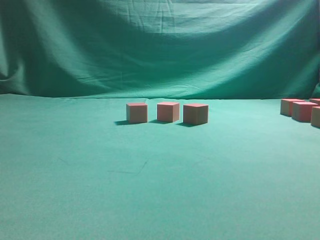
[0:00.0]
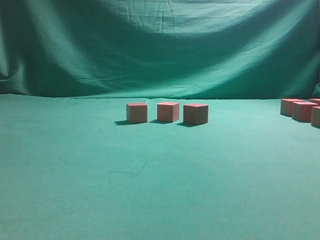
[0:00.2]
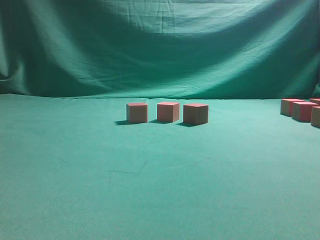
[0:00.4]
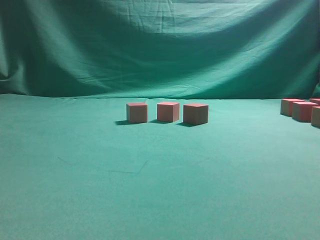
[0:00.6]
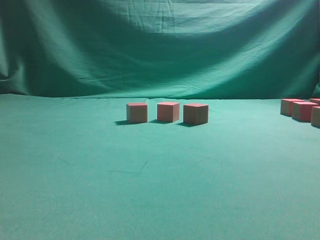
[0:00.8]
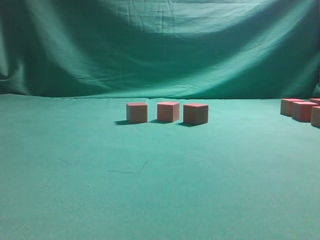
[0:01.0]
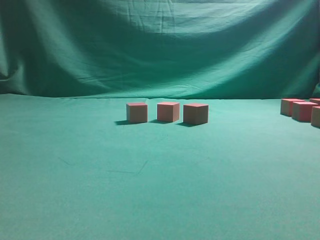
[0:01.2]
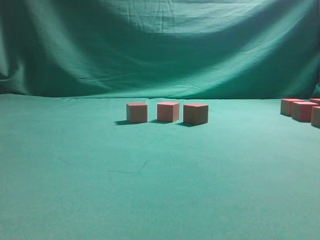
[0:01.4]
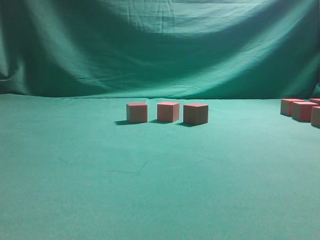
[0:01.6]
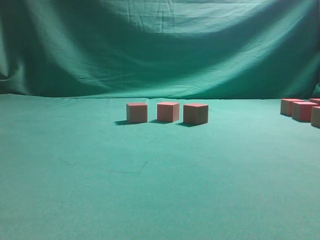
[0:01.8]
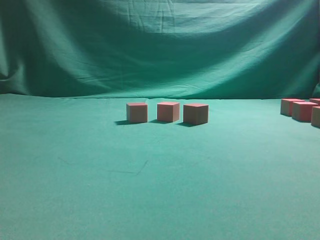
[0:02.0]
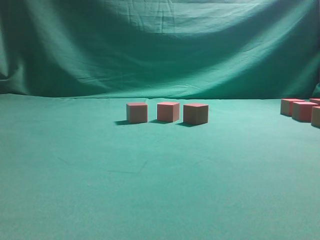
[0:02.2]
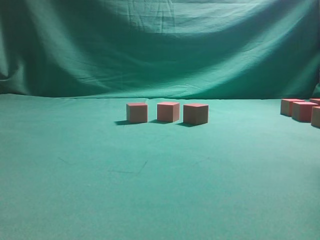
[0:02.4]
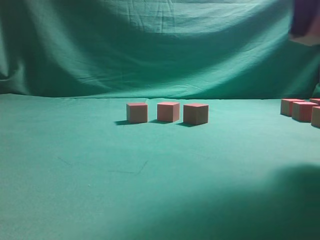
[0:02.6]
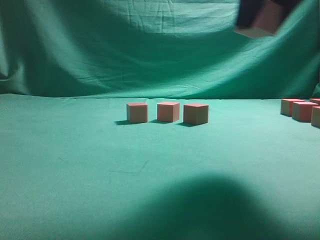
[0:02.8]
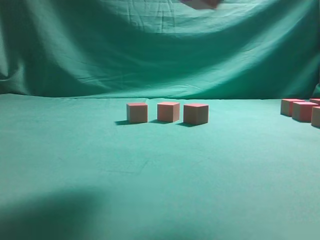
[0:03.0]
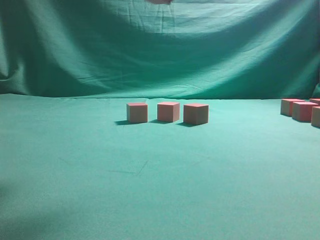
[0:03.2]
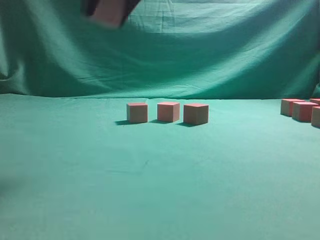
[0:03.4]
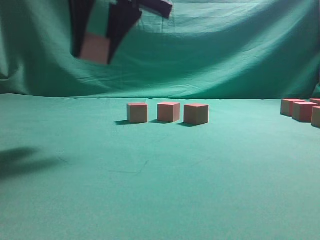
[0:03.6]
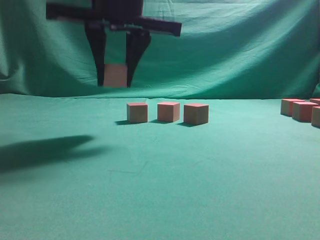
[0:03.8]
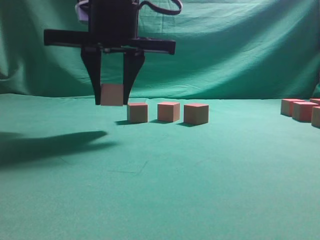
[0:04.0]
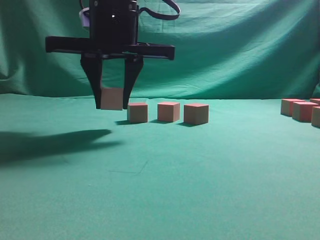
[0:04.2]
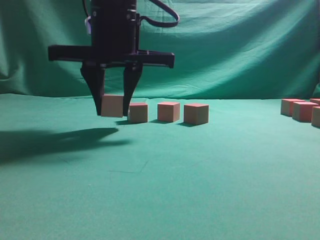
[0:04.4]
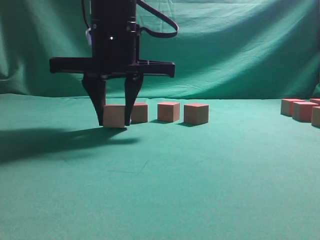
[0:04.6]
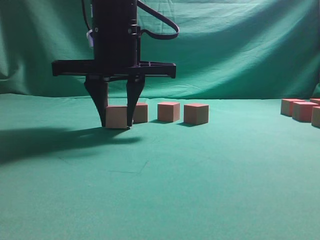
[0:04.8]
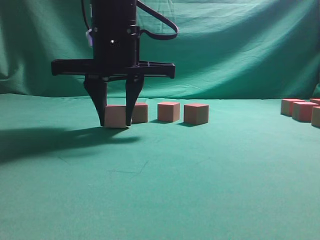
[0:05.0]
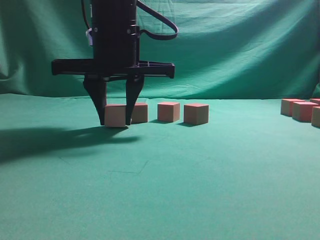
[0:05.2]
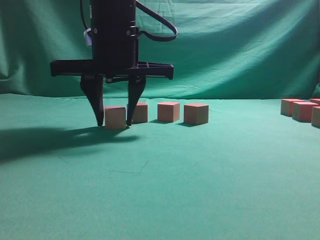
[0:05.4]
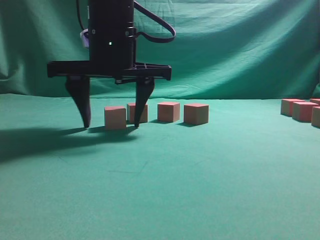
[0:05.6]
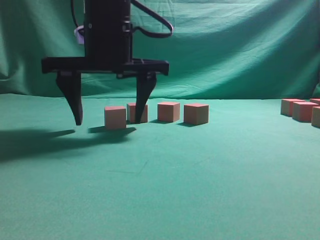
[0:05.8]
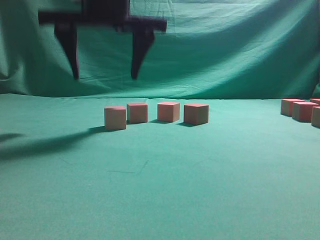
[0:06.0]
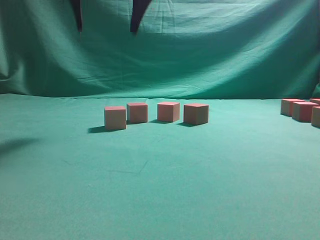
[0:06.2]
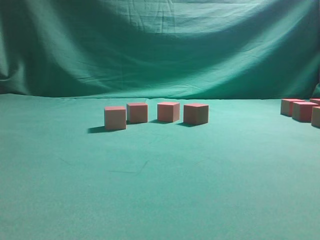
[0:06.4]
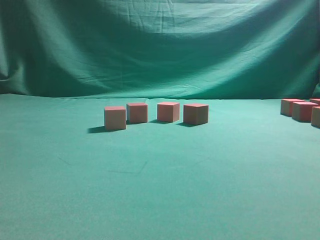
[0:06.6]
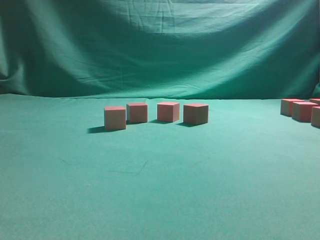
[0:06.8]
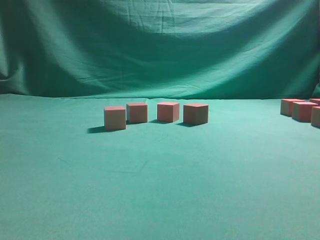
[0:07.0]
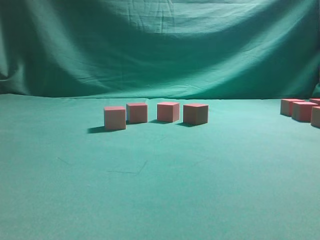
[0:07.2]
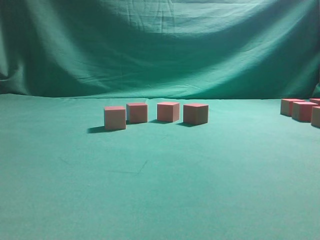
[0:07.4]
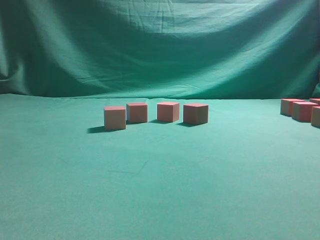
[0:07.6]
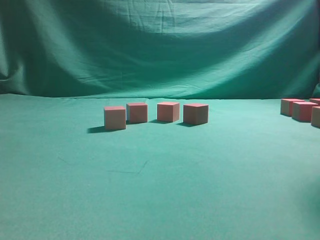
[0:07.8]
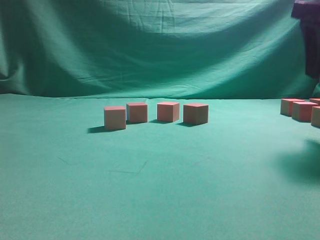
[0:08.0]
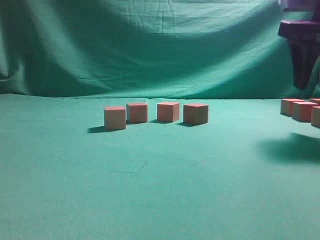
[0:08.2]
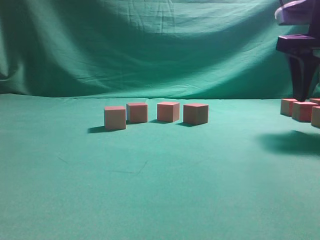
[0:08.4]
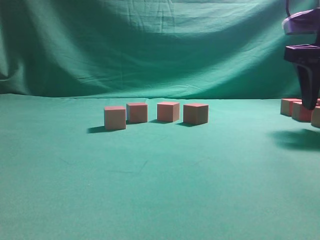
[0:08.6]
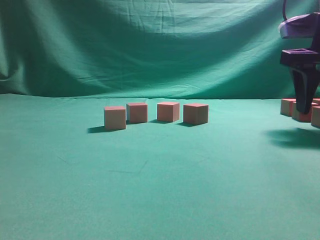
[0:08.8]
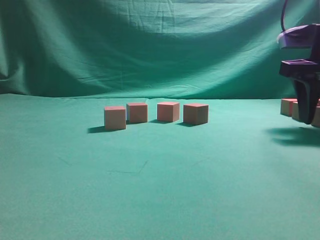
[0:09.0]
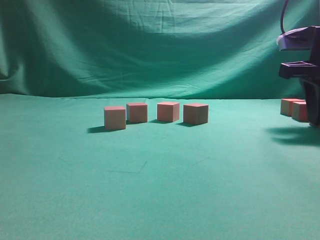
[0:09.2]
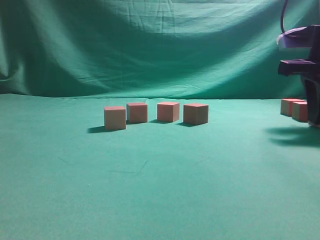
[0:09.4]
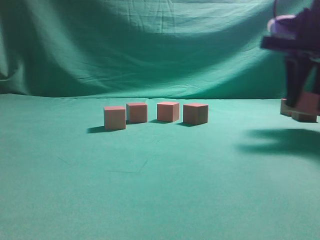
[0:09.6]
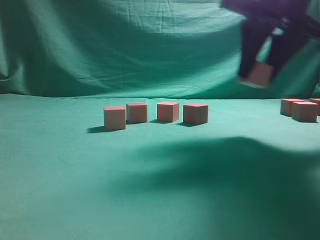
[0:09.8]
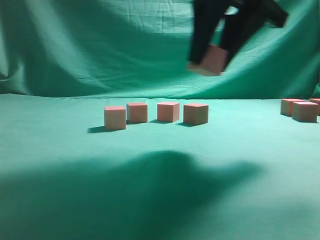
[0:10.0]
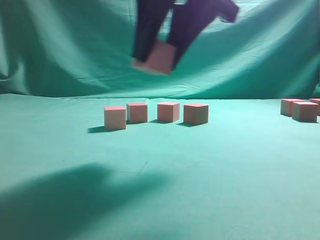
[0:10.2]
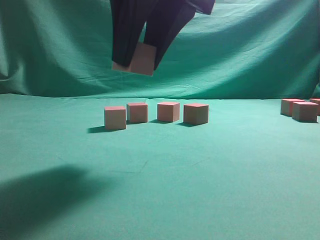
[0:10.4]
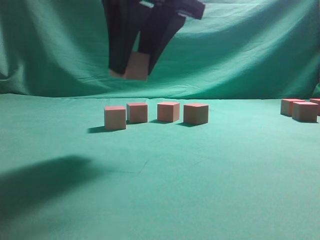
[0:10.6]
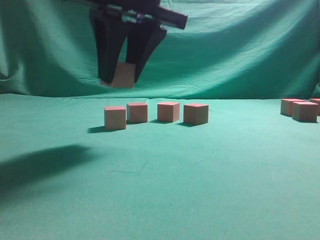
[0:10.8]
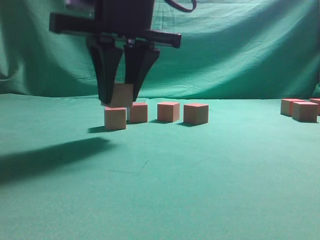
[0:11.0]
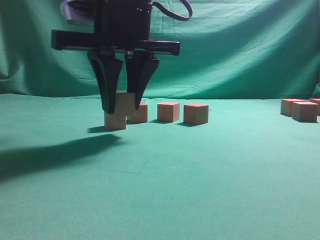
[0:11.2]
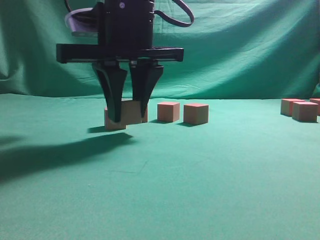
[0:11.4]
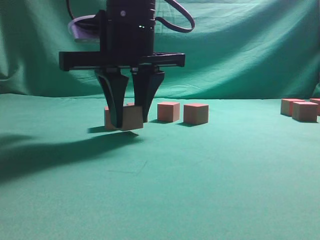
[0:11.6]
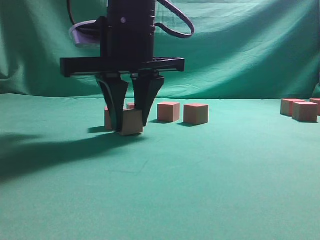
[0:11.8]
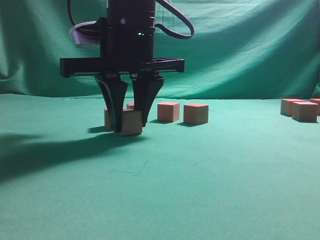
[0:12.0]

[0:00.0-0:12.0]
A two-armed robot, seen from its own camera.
Task of the whole recording: pick up the multiple cubes in two columns one by one and place them in another position on the table.
Step, 2.4 to 6.0 s: Place the block at the correct position to assemble the letter S.
Step, 6.2 to 9.6 s: Pick up the block on the table.
1.6 to 3.0 s: The right gripper is displaced to the left and upward by roughly 25 cm.
3.0 to 4.4 s: The right gripper is displaced to the left, downward and forward by about 20 cm.
4.4 to 6.0 s: The right gripper opens its fingers.
6.0 to 7.6 s: The right gripper shifts approximately 30 cm to the right.
7.6 to 9.0 s: The right gripper goes approximately 15 cm downward and forward.
9.0 to 10.4 s: The right gripper heads to the left and backward, covering about 25 cm, and closes.
10.4 to 12.0 s: The right gripper heads downward, forward and to the left, covering about 10 cm.

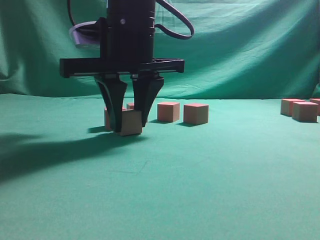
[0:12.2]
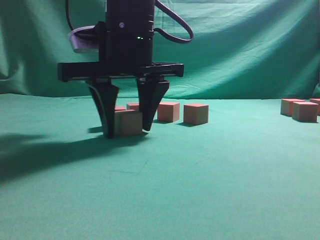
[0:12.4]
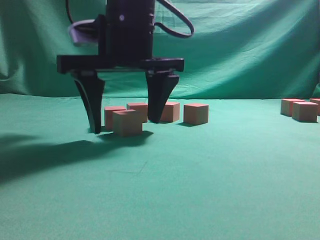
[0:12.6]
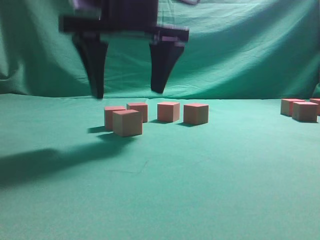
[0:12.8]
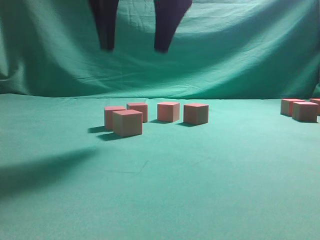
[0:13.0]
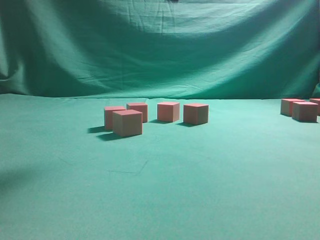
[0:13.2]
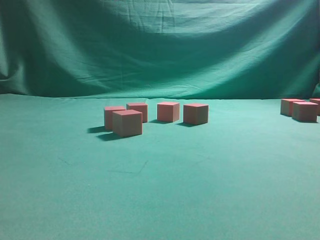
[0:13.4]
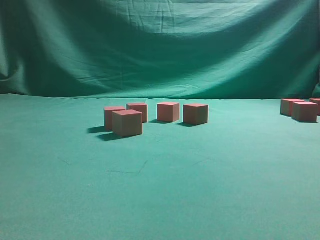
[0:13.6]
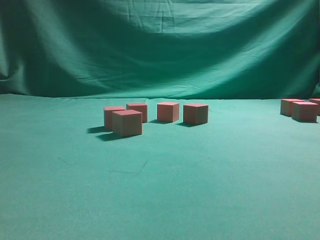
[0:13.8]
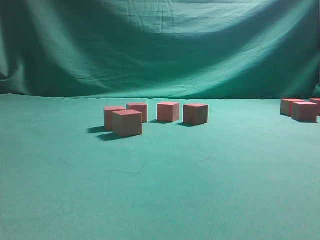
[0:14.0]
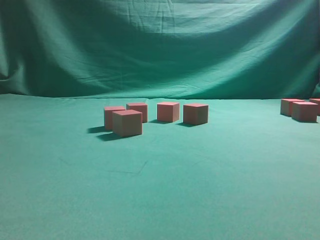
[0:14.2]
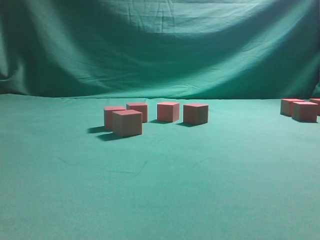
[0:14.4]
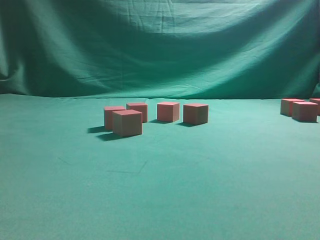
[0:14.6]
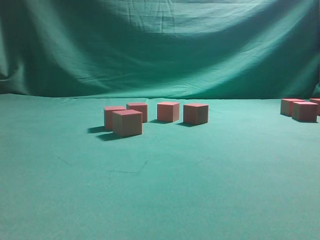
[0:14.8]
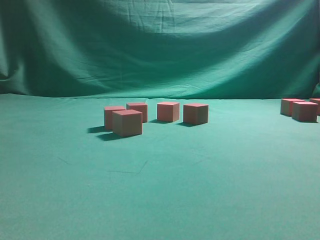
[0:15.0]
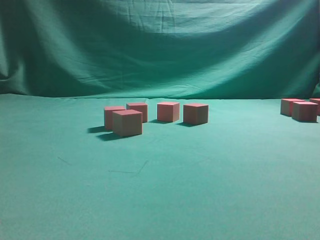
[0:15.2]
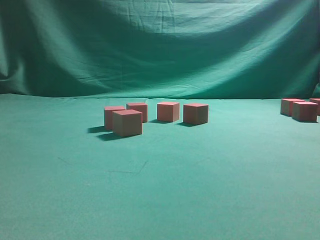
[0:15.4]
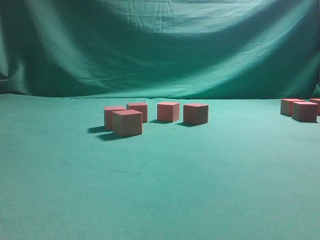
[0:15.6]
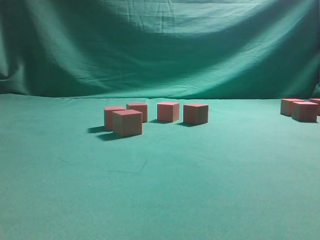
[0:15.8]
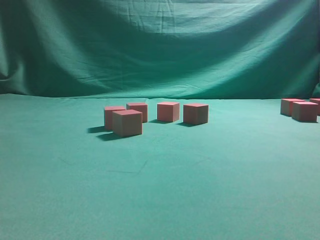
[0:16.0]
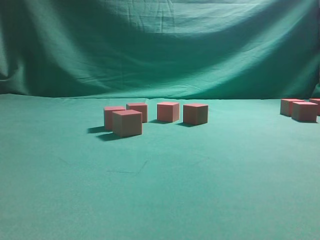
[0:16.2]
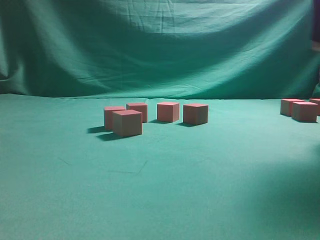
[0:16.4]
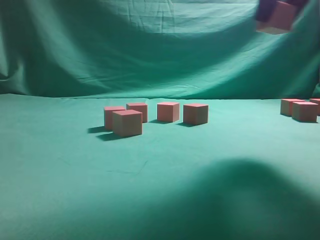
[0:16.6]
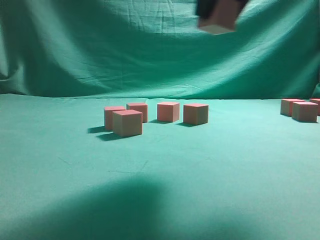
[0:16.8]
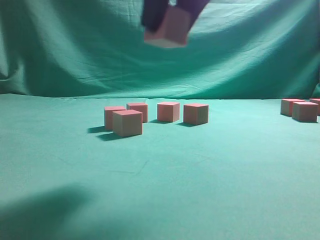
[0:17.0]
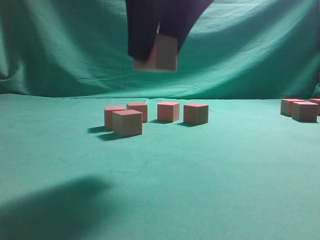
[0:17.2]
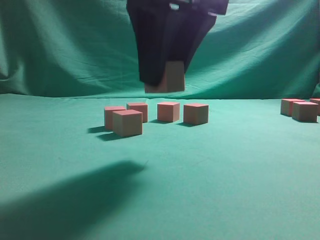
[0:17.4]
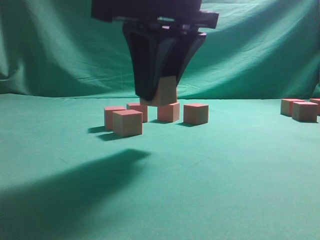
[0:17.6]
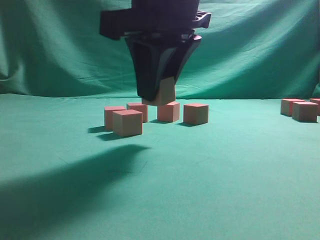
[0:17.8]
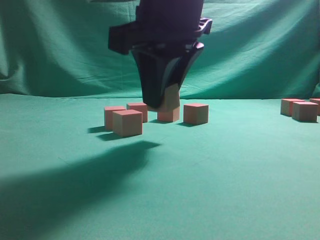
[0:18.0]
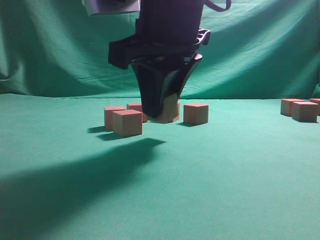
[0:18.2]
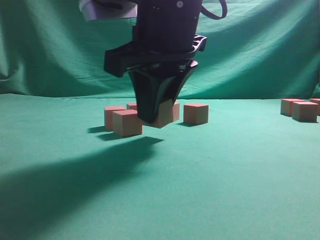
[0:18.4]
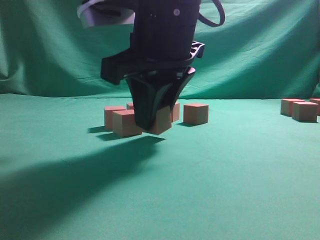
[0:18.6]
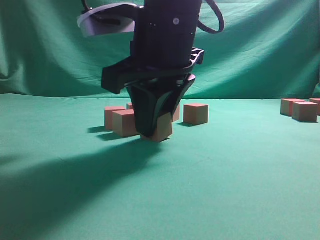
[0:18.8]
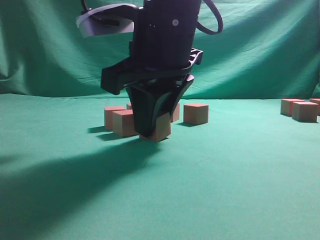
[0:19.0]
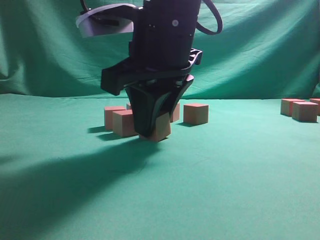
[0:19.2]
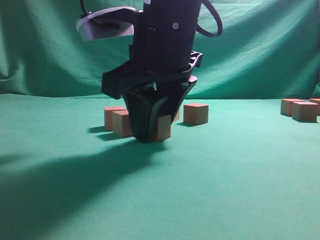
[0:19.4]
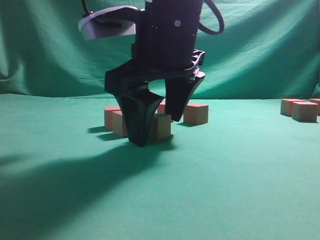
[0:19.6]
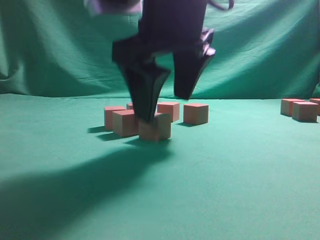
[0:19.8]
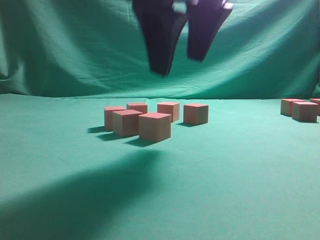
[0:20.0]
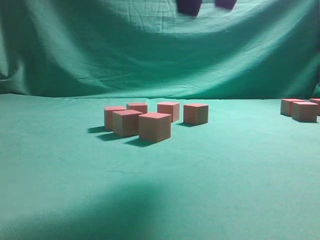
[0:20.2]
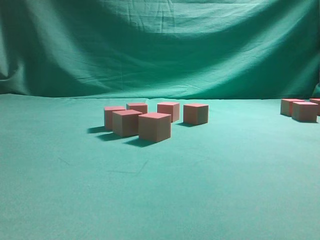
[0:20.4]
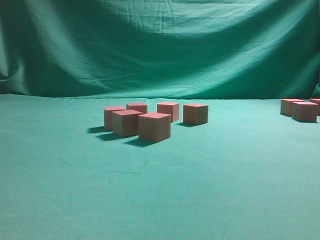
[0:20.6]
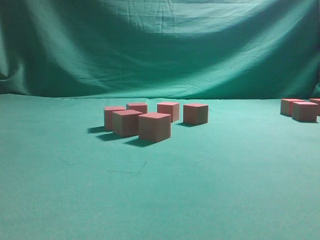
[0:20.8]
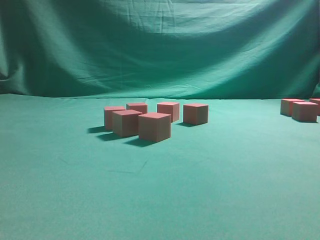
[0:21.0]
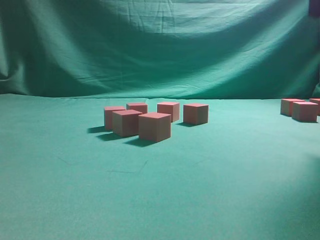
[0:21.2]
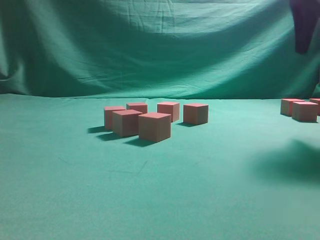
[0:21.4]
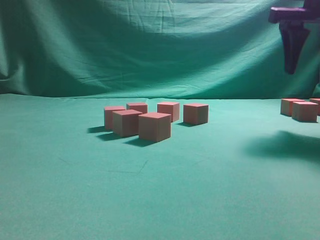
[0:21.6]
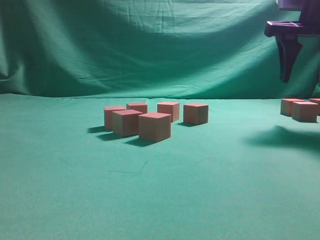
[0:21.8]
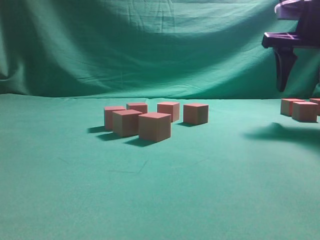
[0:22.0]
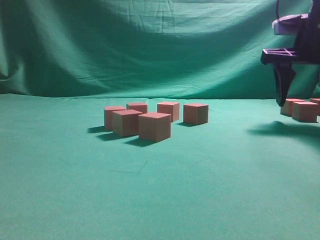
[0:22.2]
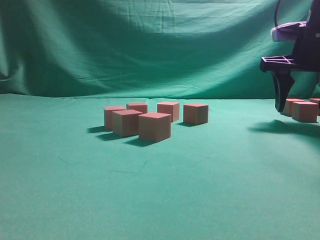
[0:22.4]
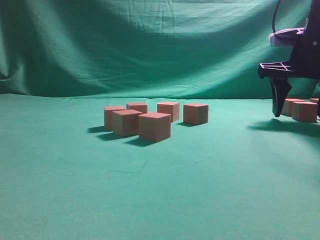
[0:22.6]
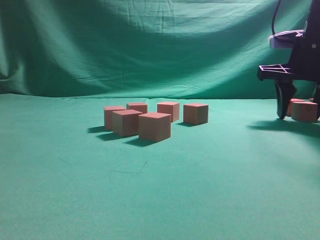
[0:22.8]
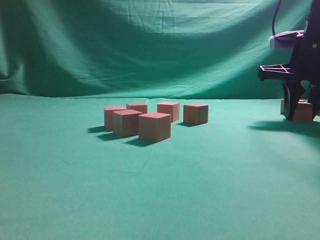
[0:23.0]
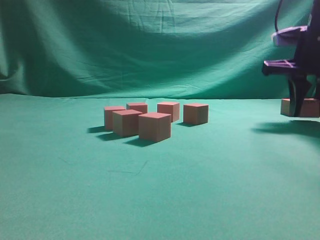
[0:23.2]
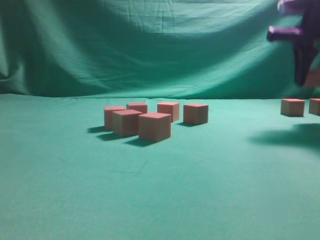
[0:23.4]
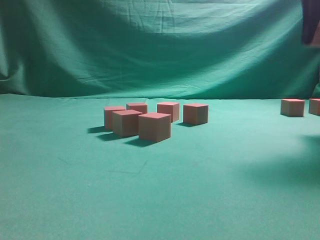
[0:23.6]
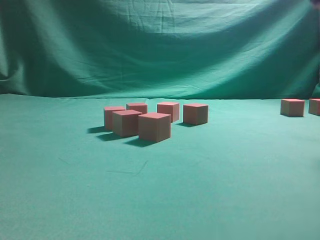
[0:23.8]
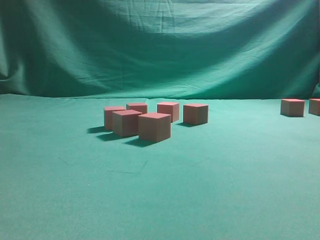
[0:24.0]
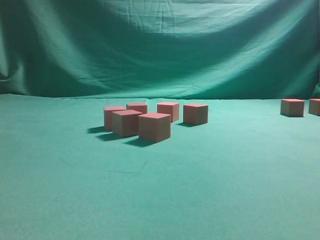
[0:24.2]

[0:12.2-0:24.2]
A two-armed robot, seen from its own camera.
Task of the whole recording: pick up the multiple cubes in two columns one by one and place them in another position on the table.
Step, 13.0 to 16.2 s: Pick up the block on the table.
Step, 16.4 to 20.0 s: Place the block at the correct position to assemble the letter S.
Step, 20.2 to 23.2 s: Pick up the block on the table.
12.2 to 13.8 s: The right gripper moves upward and to the right, approximately 30 cm, and opens its fingers.
13.8 to 15.2 s: The right gripper is displaced downward, to the right and forward by about 30 cm.
15.2 to 16.6 s: The right gripper heads to the left and upward, covering roughly 20 cm, and closes its fingers.
16.6 to 18.2 s: The right gripper travels to the left and downward by about 20 cm.
18.2 to 19.8 s: The right gripper opens its fingers.
19.8 to 21.2 s: The right gripper heads to the right and upward, covering some 25 cm.
21.2 to 22.6 s: The right gripper is displaced downward and forward by some 20 cm.
22.6 to 24.2 s: The right gripper goes approximately 25 cm backward and upward, and closes.
